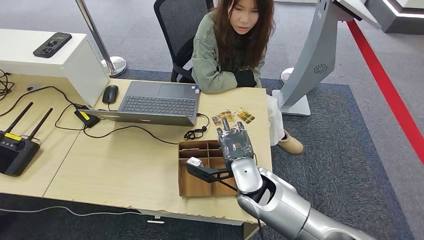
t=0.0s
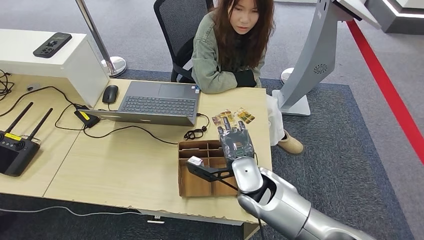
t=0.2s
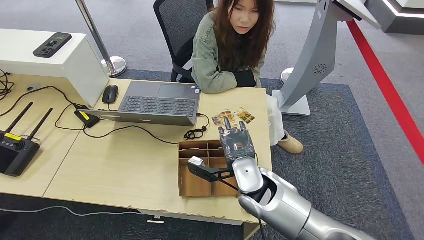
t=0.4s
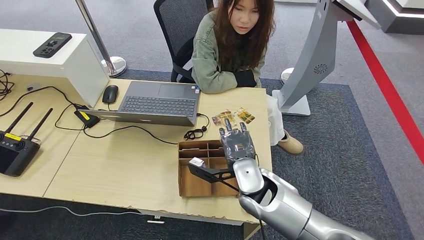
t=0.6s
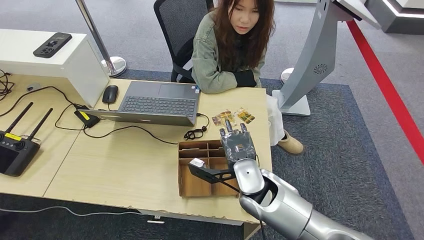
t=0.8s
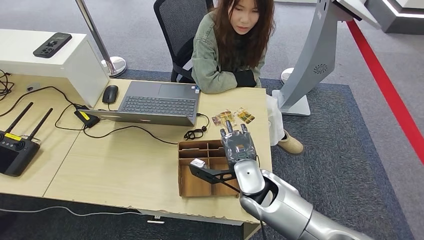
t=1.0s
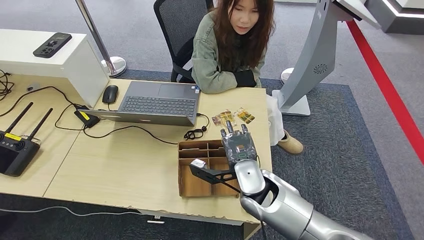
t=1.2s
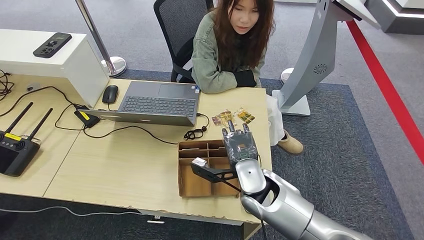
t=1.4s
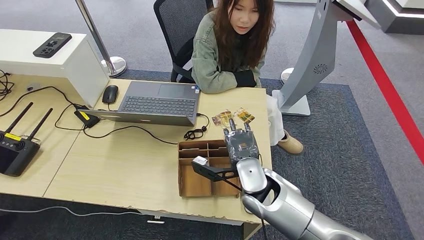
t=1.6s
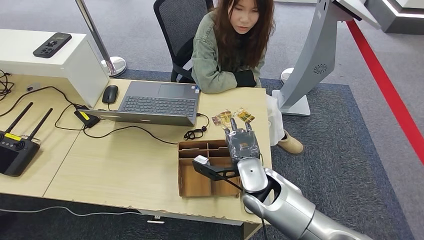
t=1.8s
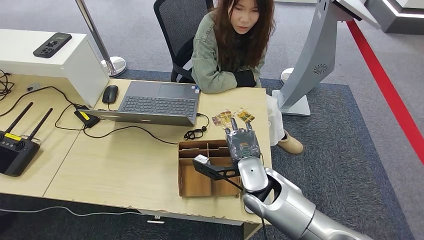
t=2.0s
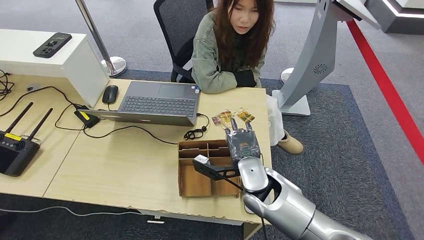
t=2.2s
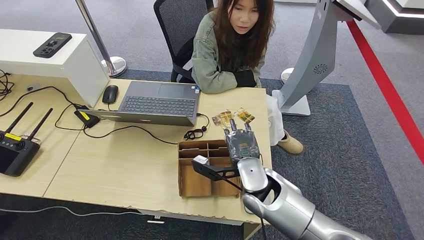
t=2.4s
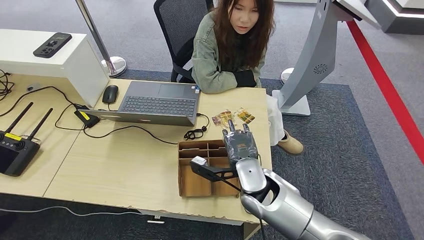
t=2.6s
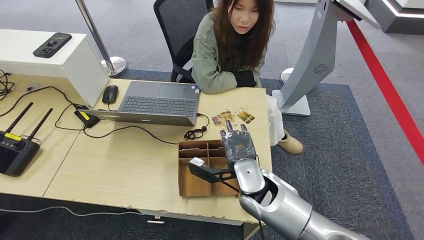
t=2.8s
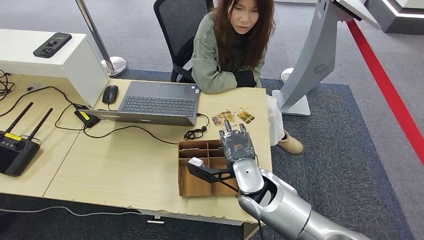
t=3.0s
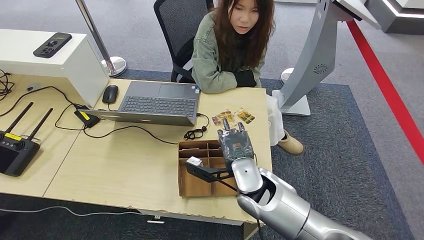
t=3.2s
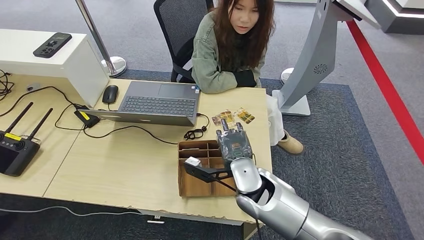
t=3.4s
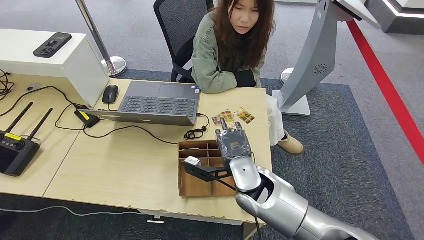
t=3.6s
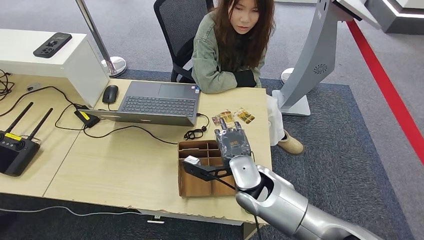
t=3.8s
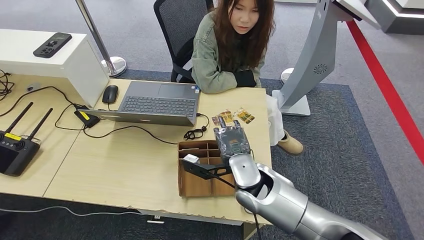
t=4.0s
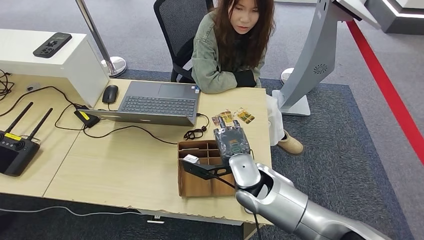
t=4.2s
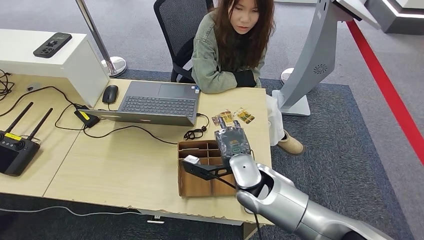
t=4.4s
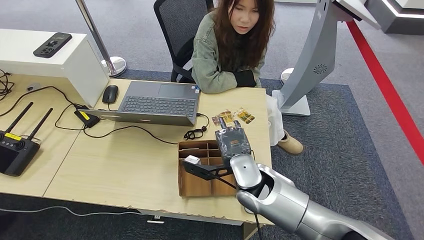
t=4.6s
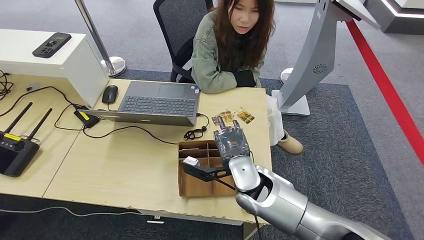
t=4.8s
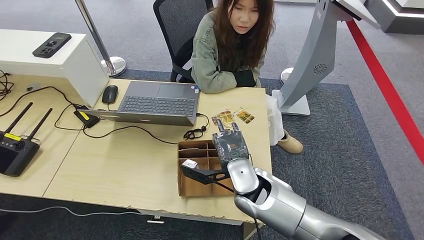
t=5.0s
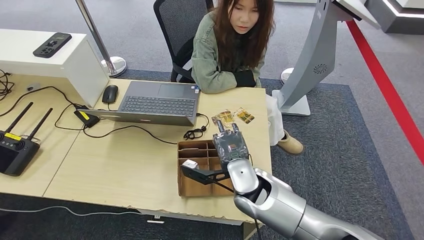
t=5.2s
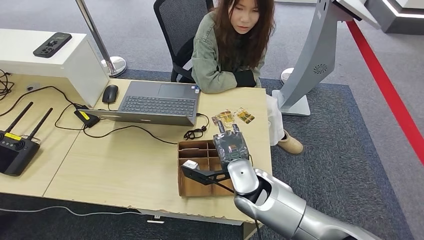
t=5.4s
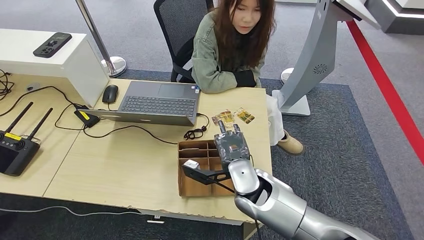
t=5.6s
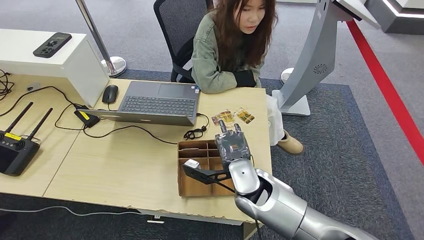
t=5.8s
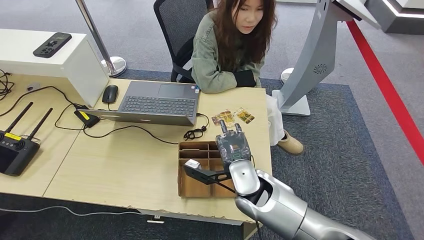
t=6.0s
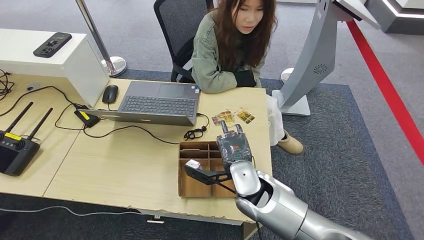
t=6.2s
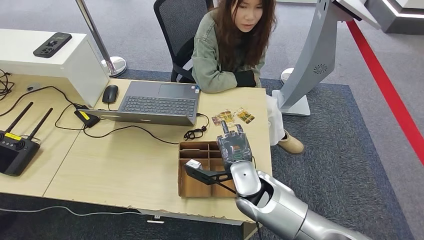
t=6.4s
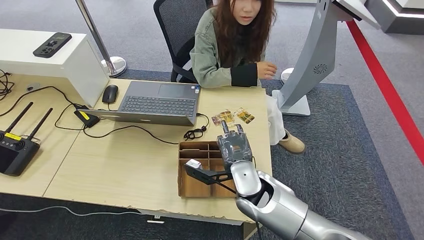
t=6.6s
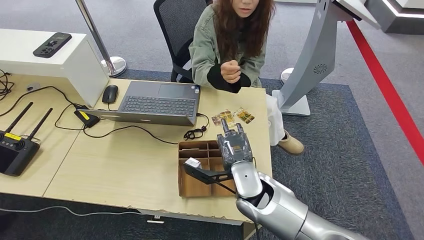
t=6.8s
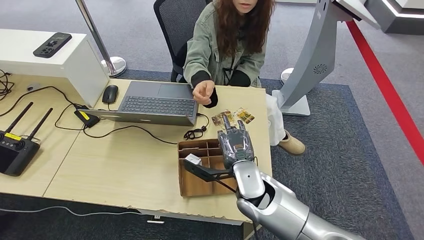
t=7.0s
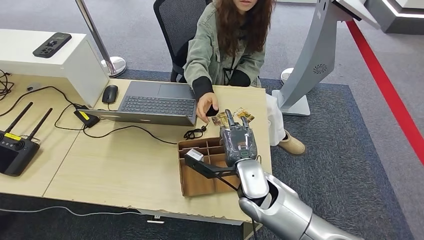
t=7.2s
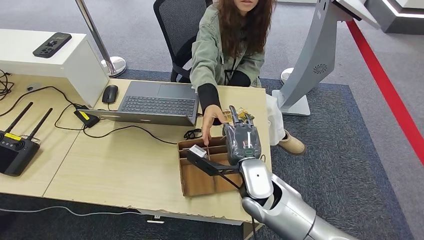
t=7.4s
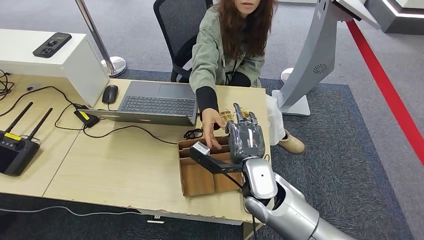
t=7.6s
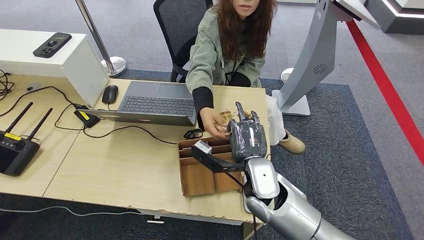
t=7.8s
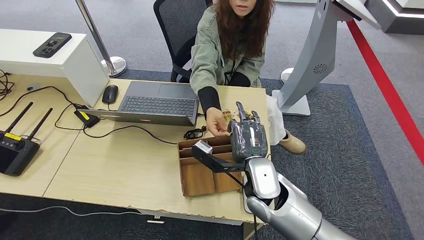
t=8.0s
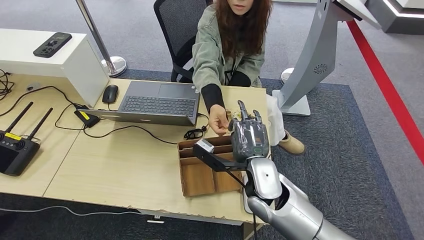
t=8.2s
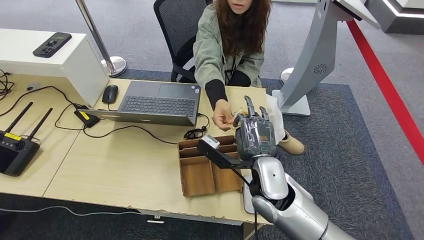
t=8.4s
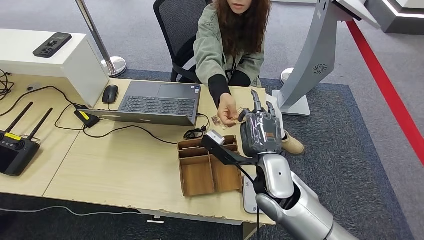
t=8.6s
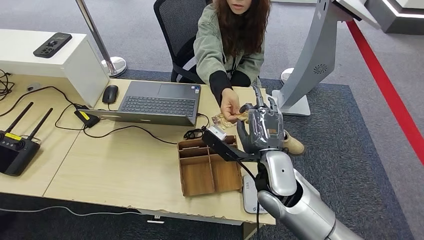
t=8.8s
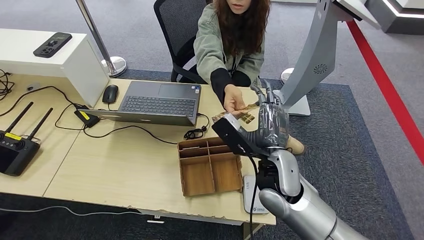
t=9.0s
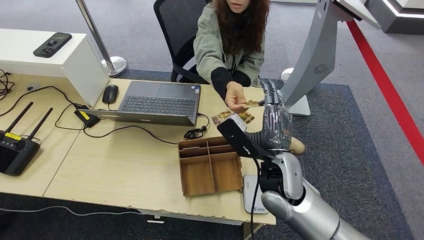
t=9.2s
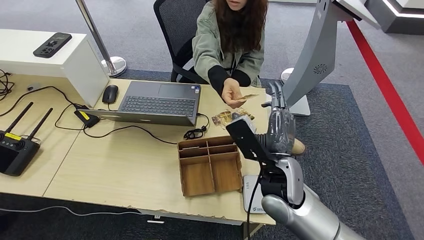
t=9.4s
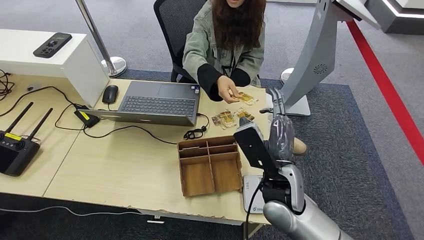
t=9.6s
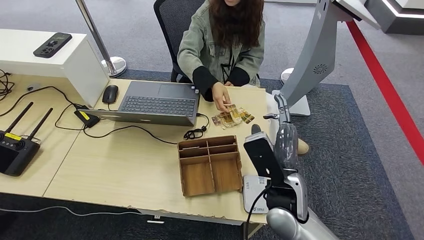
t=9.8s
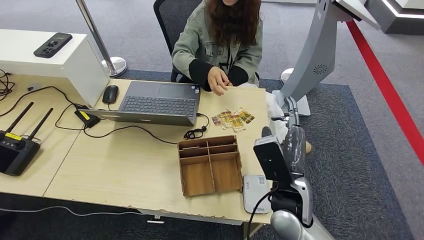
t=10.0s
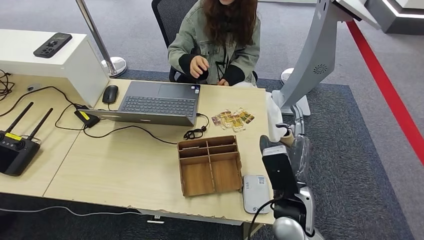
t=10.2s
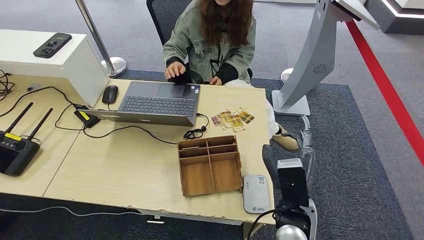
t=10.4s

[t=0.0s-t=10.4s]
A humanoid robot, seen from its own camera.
Step, t=0.0s to t=7.0s: Pick up the room key from the key card box.
Step, t=7.2s to t=10.4s: Hand the room key to the person.
t=0.0s to t=1.4s: Neither hand changes place.
t=1.4s to t=3.0s: Neither hand changes place.
t=3.0s to t=4.4s: The left hand goes about 5 cm to the left.
t=4.4s to t=6.0s: The left hand shifts roughly 5 cm to the right.
t=6.0s to t=7.4s: The hands stay close to where they were, moving slightly.
t=7.4s to t=9.0s: The right hand heads upward, covering roughly 5 cm.
t=9.0s to t=10.4s: The right hand moves backward and downward, roughly 10 cm.
